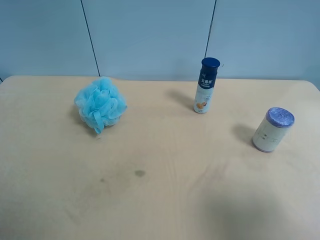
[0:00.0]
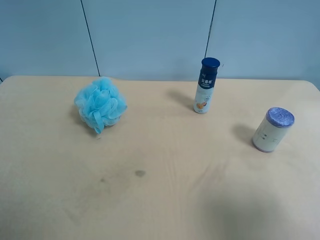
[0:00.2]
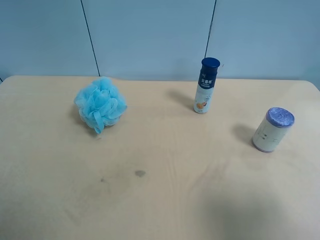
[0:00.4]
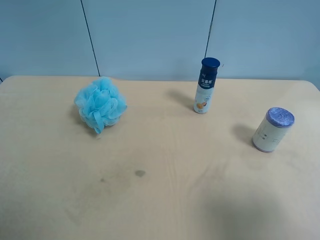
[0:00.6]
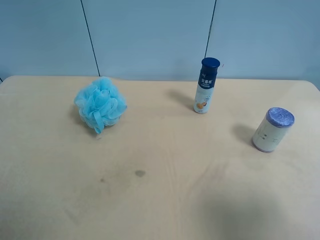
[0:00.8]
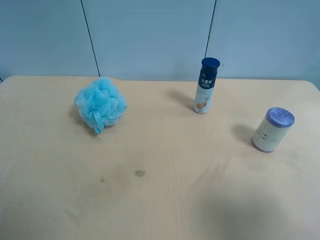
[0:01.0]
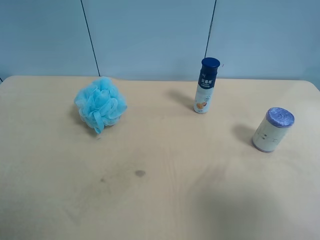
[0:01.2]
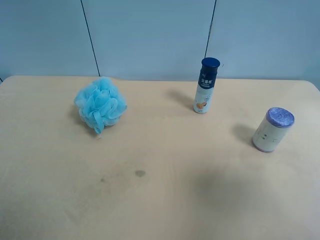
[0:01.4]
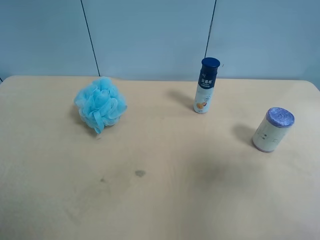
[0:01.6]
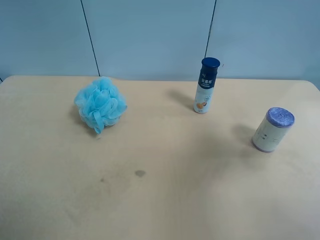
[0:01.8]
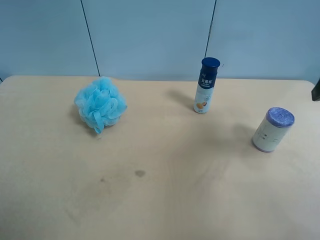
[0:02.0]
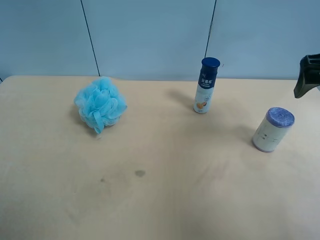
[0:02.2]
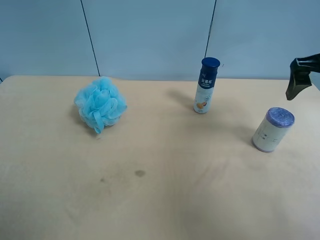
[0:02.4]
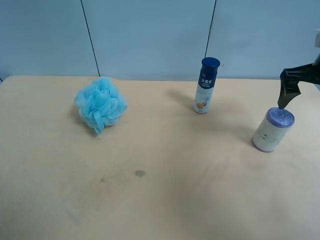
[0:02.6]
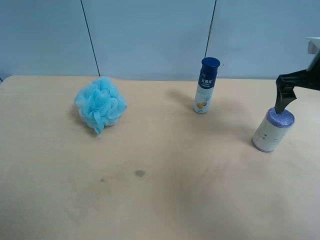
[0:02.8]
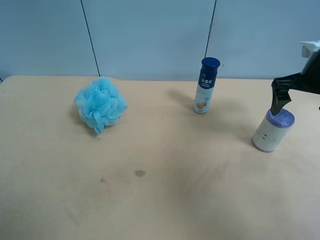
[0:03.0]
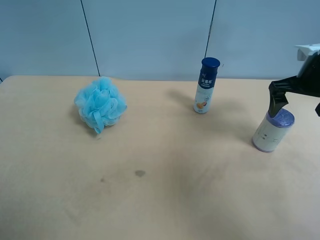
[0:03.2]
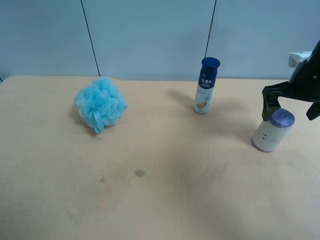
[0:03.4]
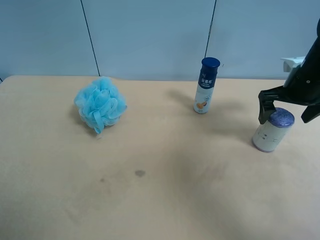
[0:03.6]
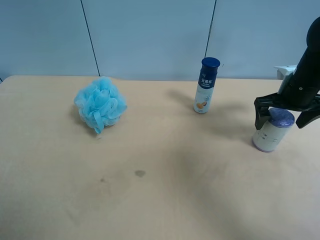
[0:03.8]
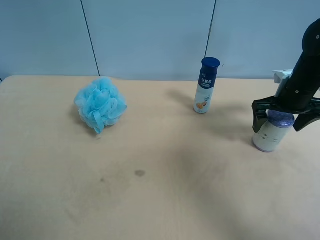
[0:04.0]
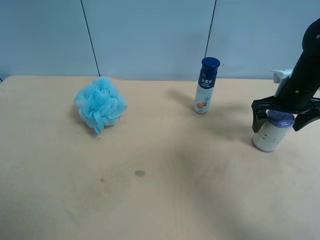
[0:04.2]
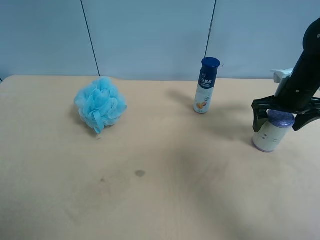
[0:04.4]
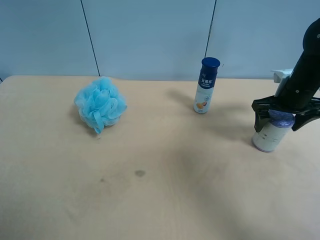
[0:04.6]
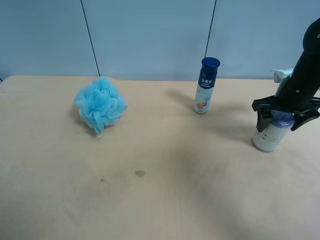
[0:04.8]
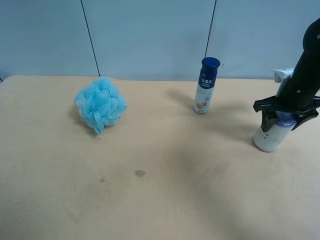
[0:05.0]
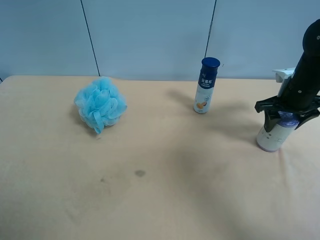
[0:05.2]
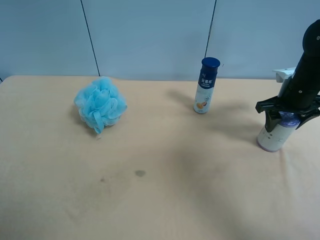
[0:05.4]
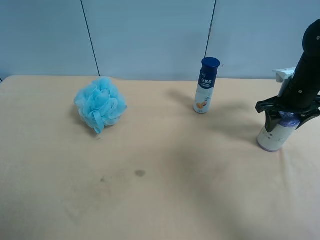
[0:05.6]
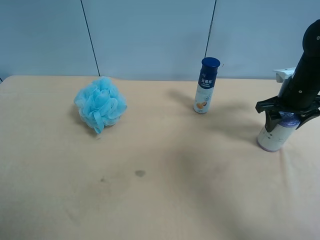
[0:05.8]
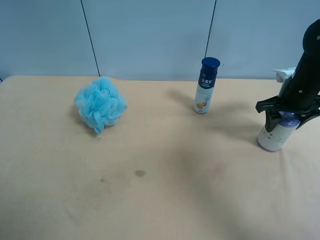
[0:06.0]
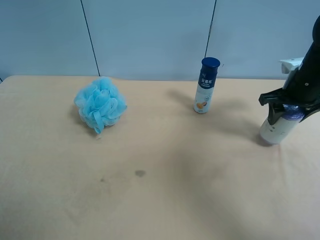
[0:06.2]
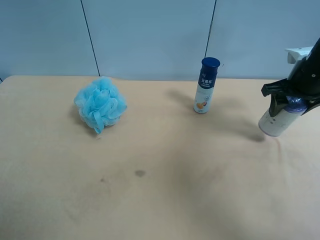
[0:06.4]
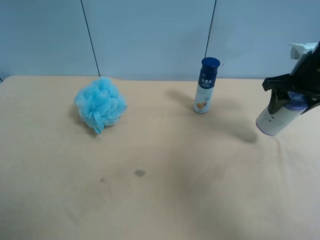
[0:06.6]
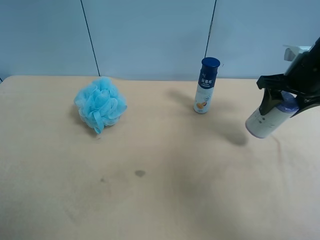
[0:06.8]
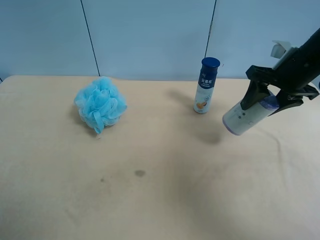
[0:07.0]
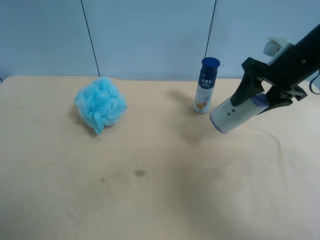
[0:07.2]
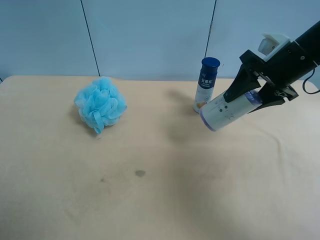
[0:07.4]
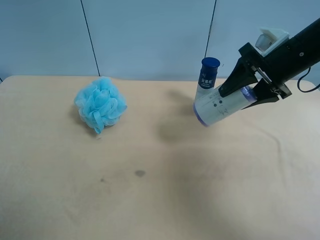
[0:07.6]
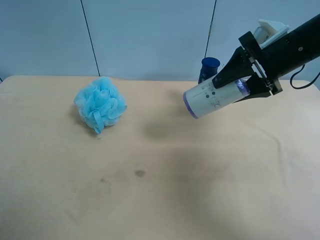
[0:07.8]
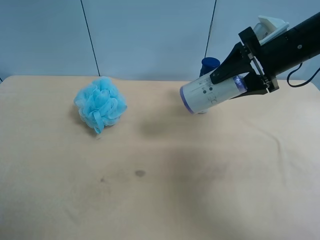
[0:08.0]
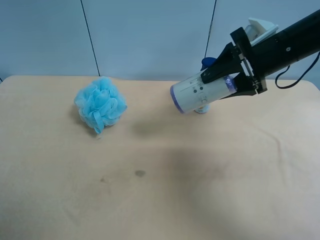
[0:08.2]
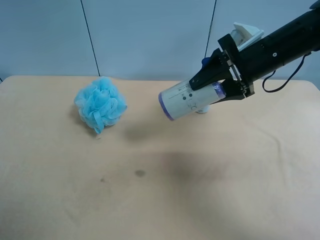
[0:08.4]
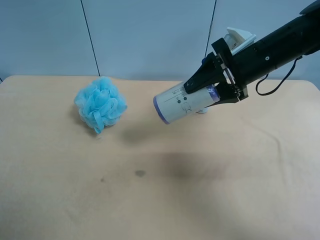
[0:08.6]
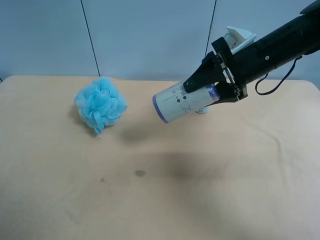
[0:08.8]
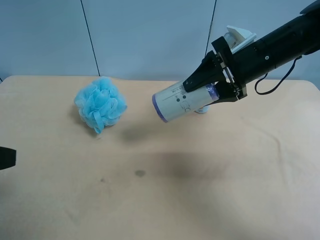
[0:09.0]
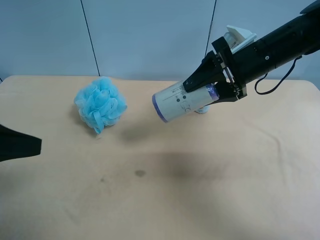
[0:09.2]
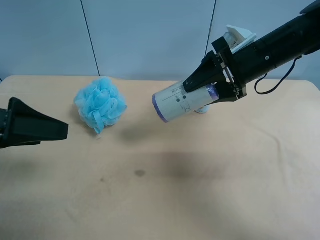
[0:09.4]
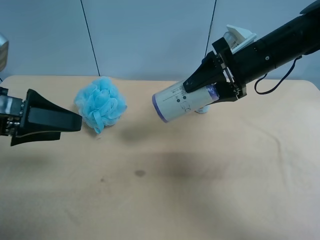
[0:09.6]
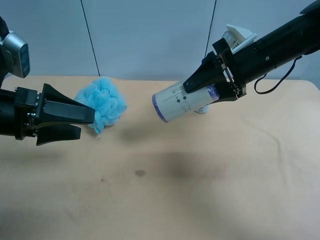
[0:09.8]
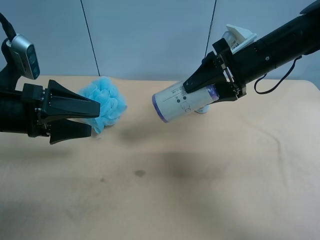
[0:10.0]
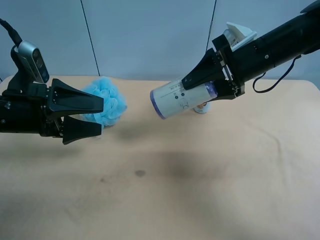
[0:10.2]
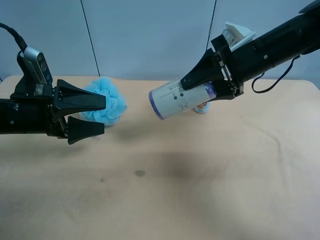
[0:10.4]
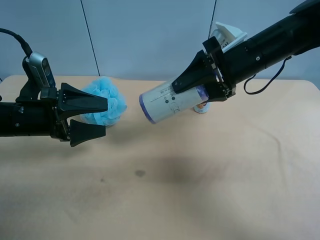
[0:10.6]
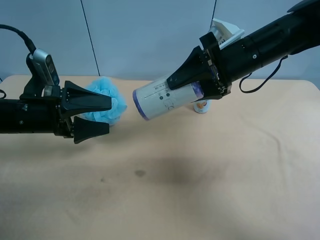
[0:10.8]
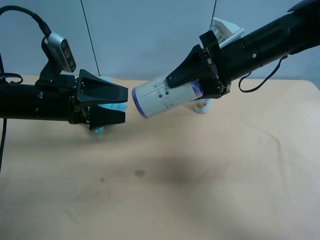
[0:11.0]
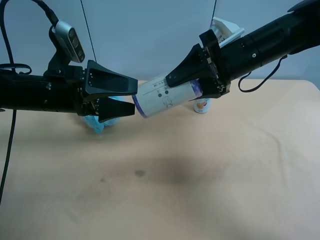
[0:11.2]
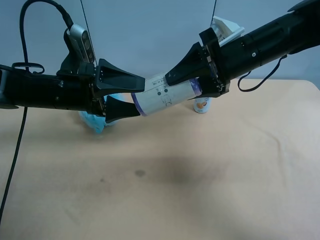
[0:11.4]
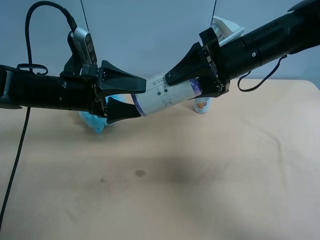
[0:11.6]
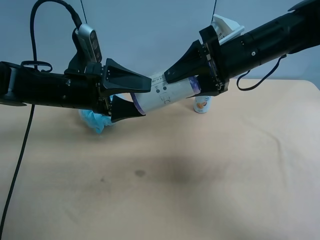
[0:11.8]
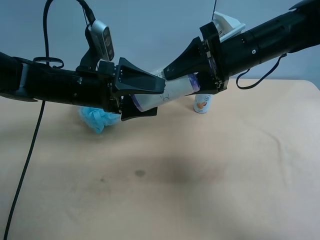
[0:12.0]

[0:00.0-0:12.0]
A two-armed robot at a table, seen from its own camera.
Task of the whole recording: use the right gripper to pick up the item and transfer it from the right gripper to the left gripper.
0:00.0 to 0:01.6: The right gripper goes some 10 cm forward and upward.
0:01.6 to 0:03.0: The right gripper shifts some 20 cm forward.
0:03.0 to 0:04.4: The right gripper shifts some 5 cm downward.
0:04.4 to 0:06.0: The right gripper closes its fingers.
0:06.0 to 0:07.6: The right gripper heads upward and to the left, covering some 10 cm.
0:07.6 to 0:09.0: The left gripper is displaced forward by roughly 10 cm; the right gripper travels to the left by roughly 5 cm.
0:09.0 to 0:10.4: The left gripper goes roughly 20 cm forward and downward.
0:10.4 to 0:12.0: The left gripper heads to the right, covering about 10 cm.

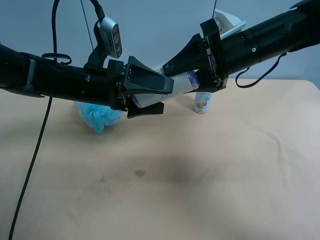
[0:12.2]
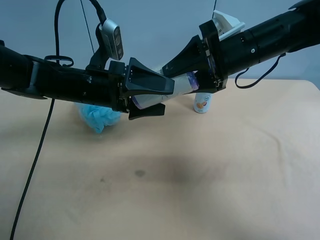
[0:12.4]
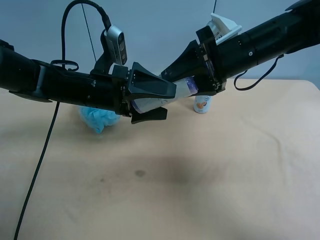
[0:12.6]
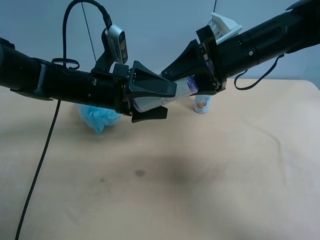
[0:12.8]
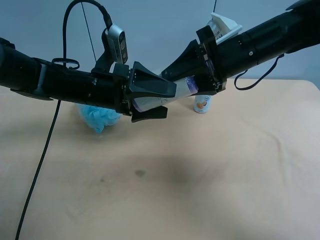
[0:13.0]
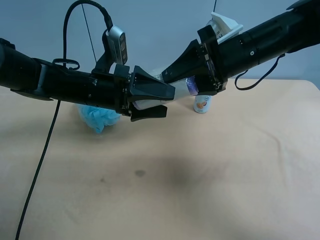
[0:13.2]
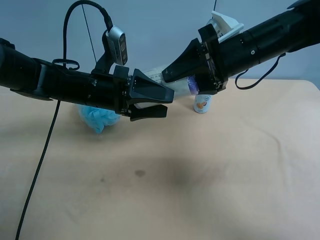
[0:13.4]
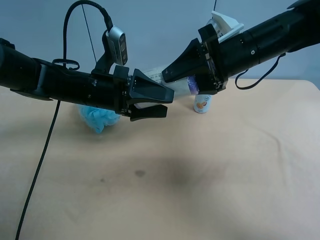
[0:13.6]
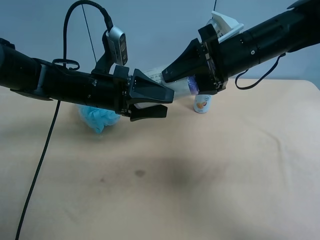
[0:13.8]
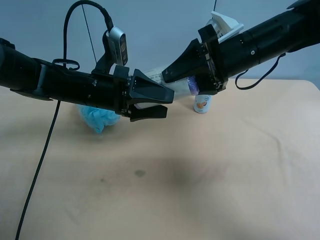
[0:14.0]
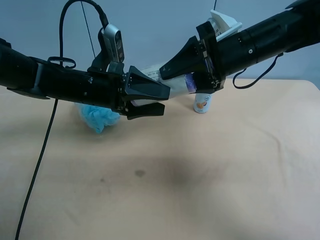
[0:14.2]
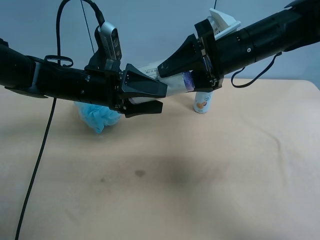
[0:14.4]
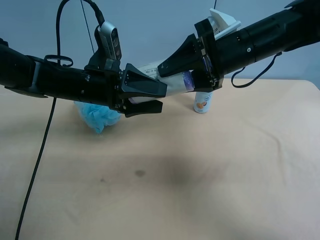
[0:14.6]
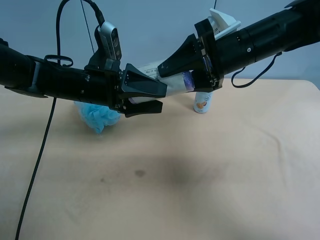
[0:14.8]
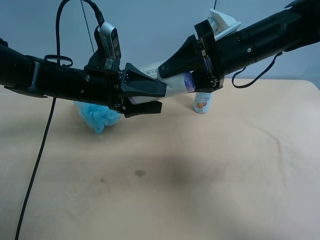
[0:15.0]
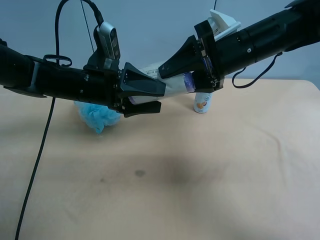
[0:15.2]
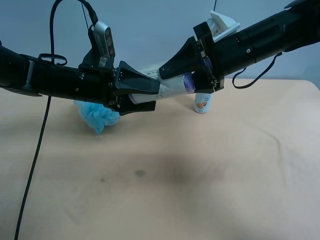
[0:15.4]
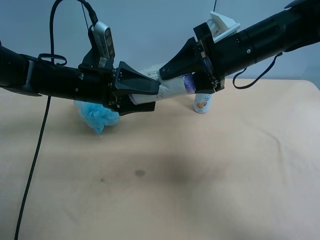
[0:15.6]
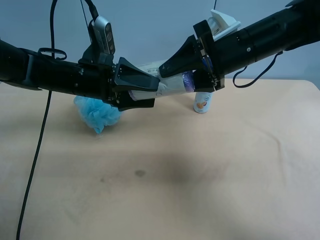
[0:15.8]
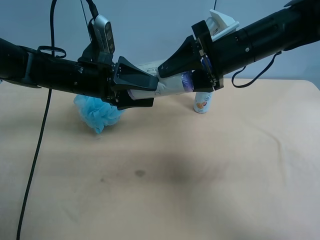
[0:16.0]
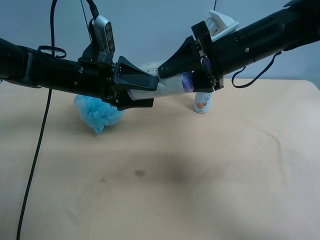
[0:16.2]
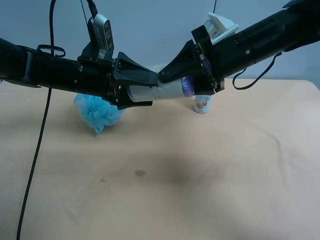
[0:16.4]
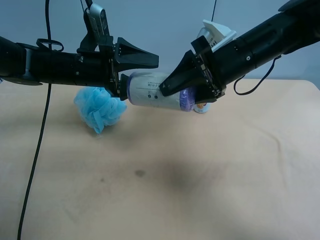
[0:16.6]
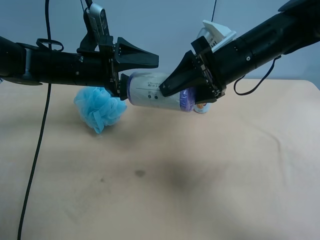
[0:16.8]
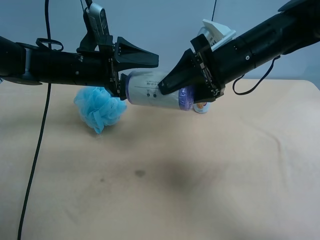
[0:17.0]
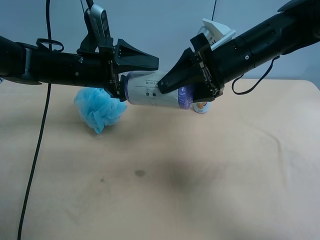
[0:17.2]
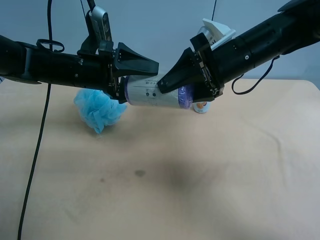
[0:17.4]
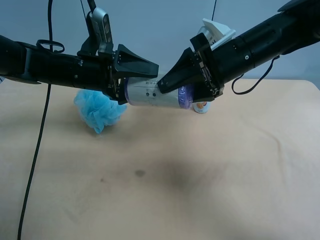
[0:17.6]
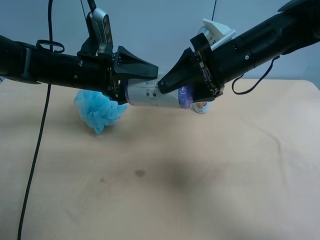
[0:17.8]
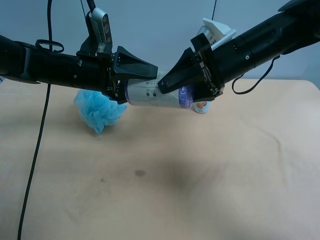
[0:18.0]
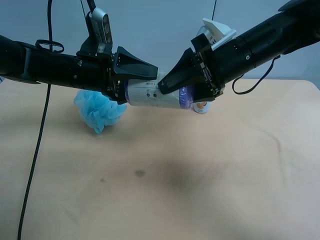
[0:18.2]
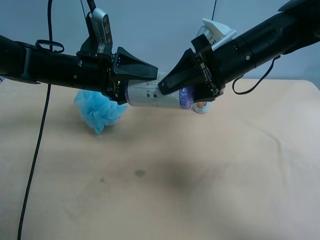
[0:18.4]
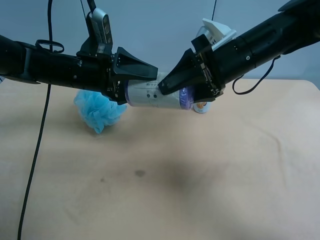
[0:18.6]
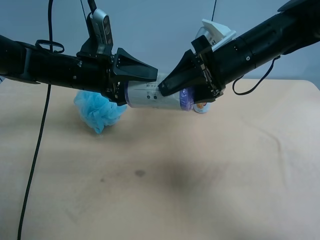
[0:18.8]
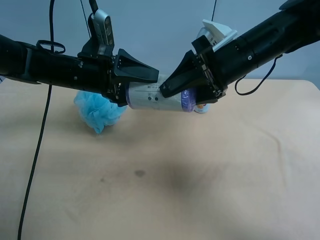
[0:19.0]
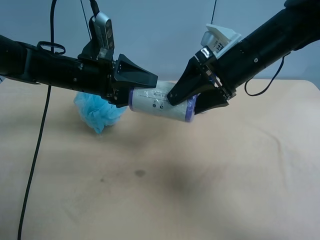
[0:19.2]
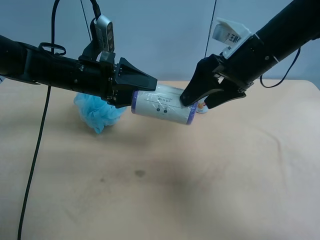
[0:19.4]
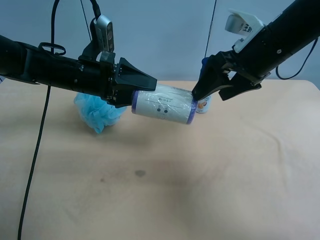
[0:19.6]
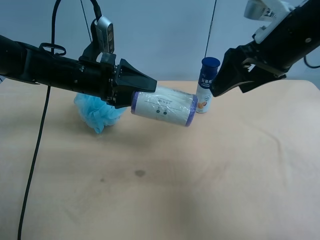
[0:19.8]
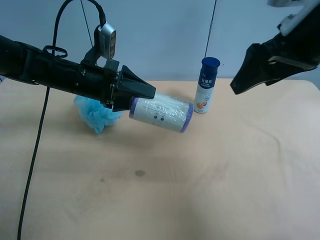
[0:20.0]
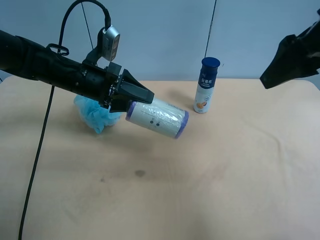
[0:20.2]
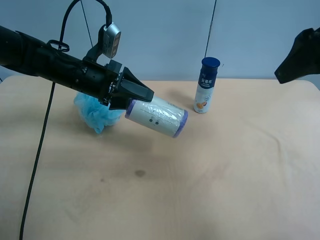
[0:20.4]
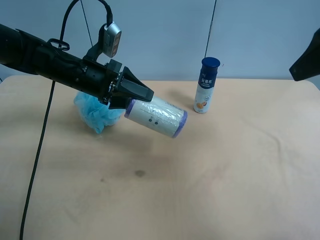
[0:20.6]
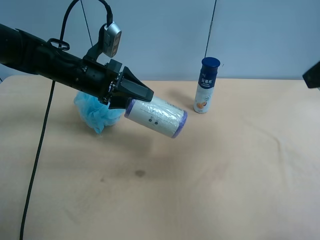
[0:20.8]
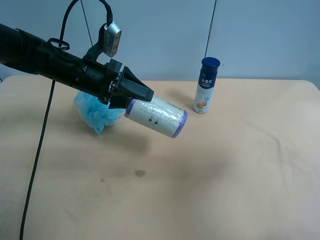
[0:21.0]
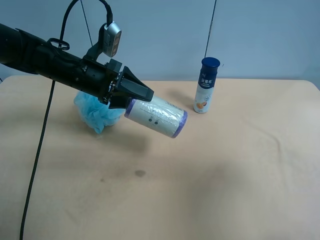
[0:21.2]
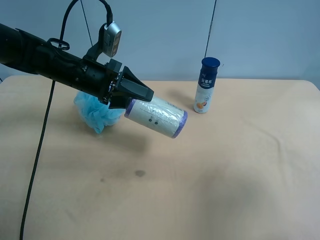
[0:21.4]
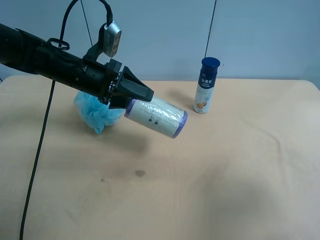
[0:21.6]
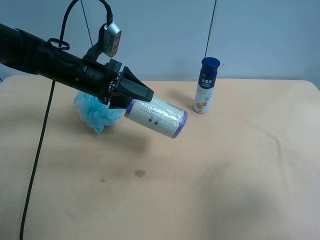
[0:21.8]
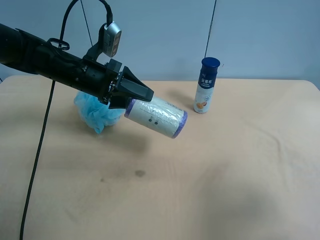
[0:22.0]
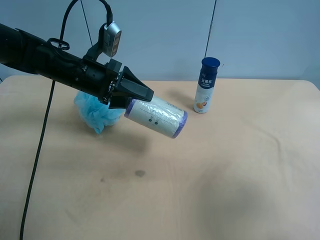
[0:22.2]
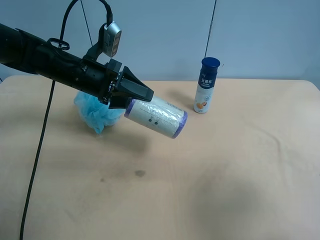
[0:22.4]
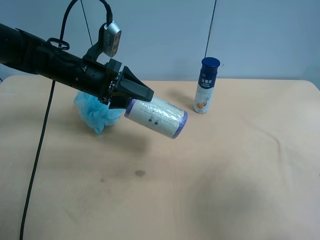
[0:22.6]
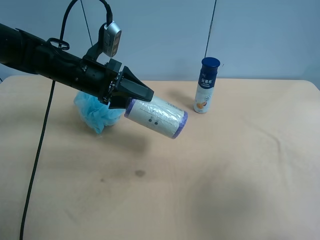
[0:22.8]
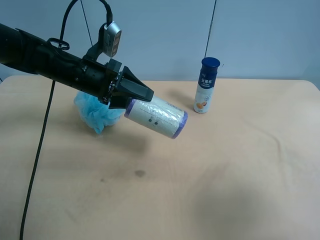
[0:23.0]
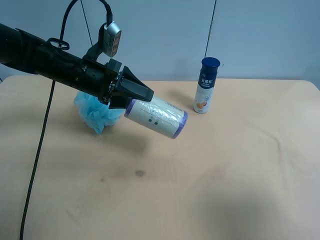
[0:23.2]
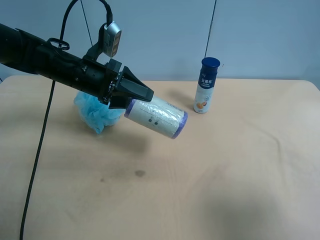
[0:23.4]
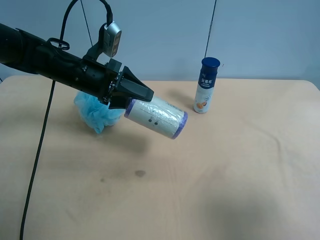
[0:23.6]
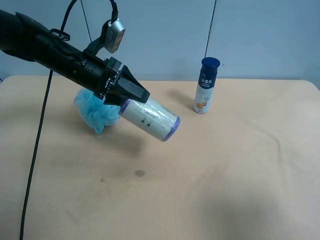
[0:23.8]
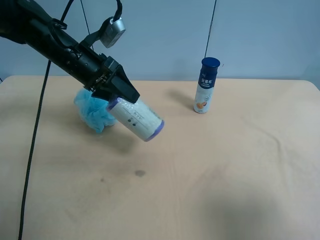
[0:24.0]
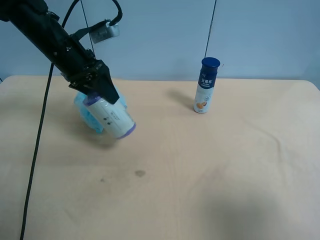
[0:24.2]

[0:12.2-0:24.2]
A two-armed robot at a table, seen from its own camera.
Task of the whole recording: use the right gripper to pick up the item and transfer it from the right gripper to the left gripper.
0:12.2 to 0:13.8: The left gripper closes its fingers.
0:13.8 to 0:18.2: The grippers make only small movements.
0:18.2 to 0:19.8: The right gripper goes roughly 10 cm upward and to the right, and opens its fingers.
0:19.8 to 0:21.2: The right gripper is displaced backward and to the right by about 20 cm.
0:21.2 to 0:22.6: The right gripper goes about 5 cm downward.
0:22.6 to 0:24.2: The left gripper is displaced upward by about 5 cm.
